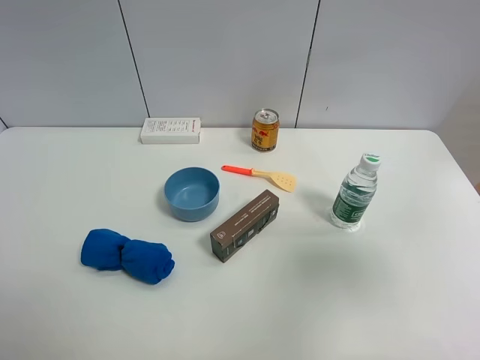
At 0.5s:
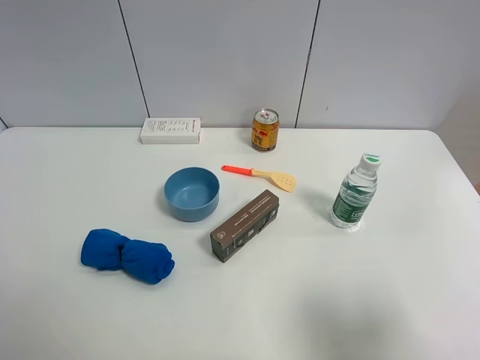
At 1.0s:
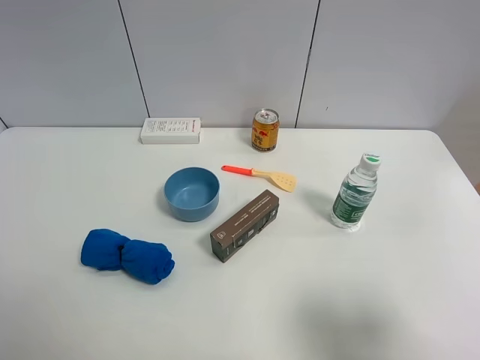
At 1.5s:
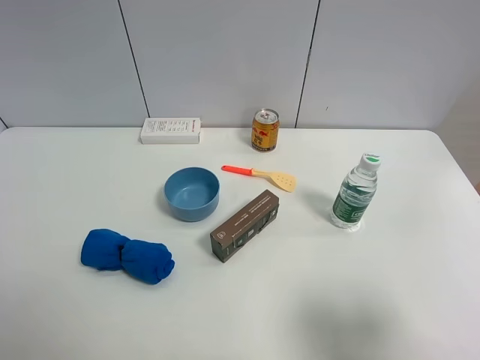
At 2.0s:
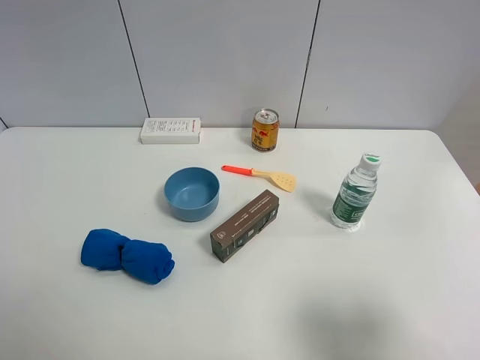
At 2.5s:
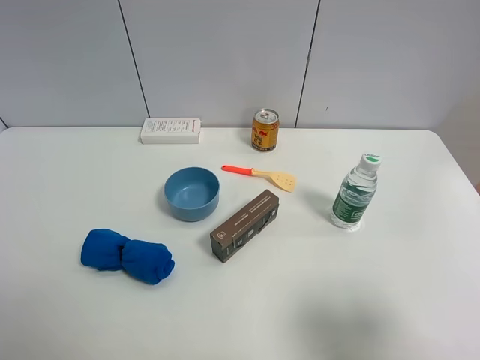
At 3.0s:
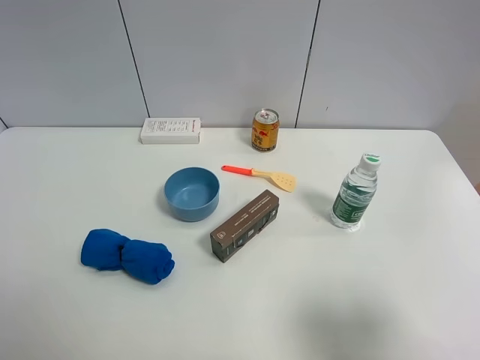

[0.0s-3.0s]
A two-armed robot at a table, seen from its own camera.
Task of the whole recording: the gripper move the object.
0.0s to 1.5s: The right gripper is displaced downward and backward by about 15 cm.
1.5s to 3.0s: The two grippers keep their place.

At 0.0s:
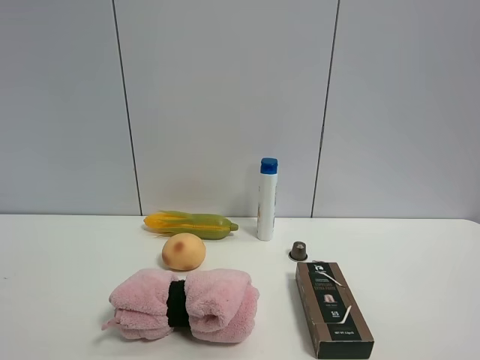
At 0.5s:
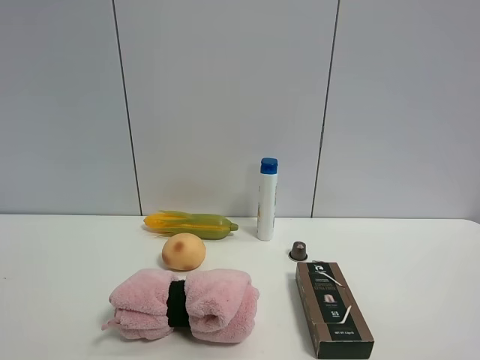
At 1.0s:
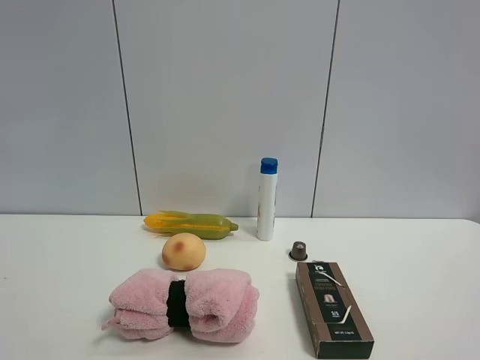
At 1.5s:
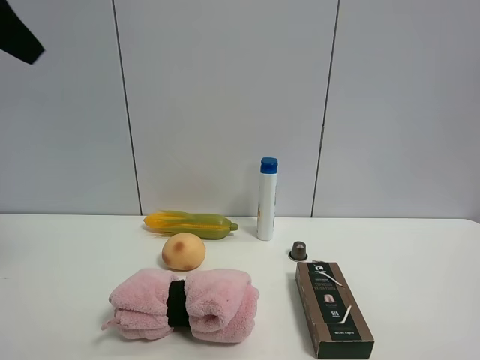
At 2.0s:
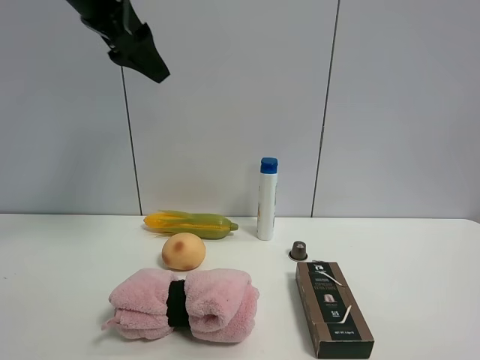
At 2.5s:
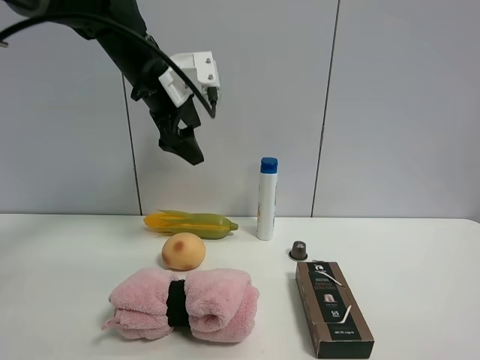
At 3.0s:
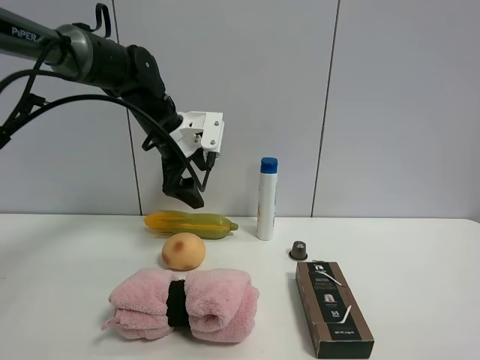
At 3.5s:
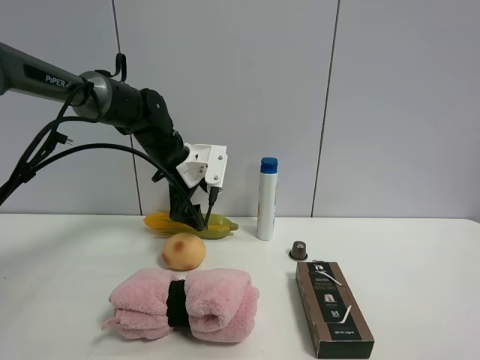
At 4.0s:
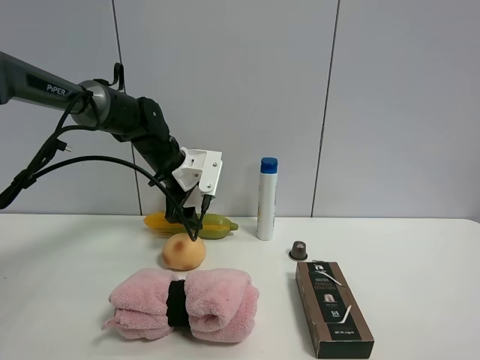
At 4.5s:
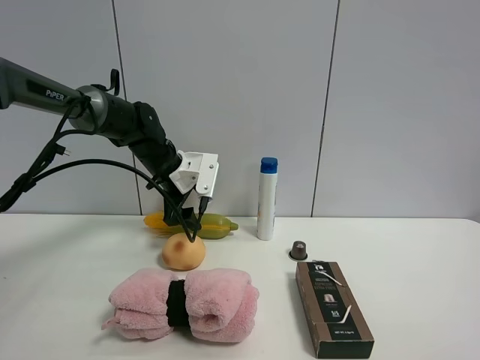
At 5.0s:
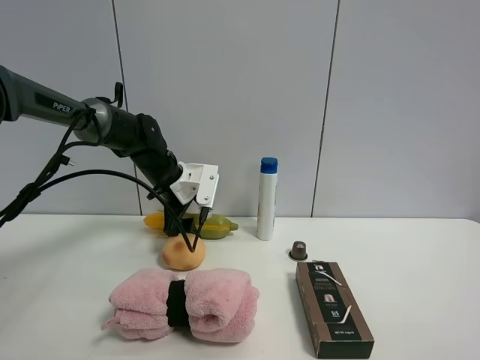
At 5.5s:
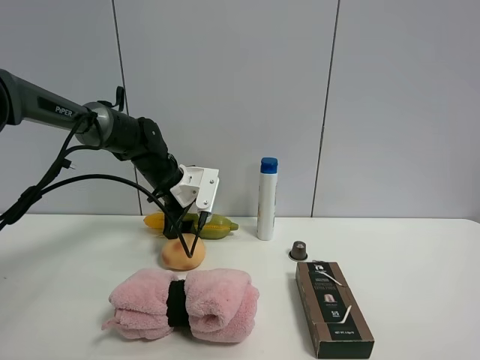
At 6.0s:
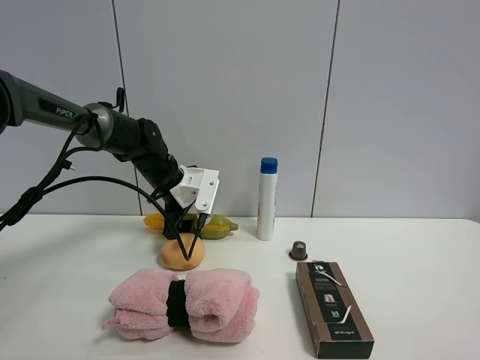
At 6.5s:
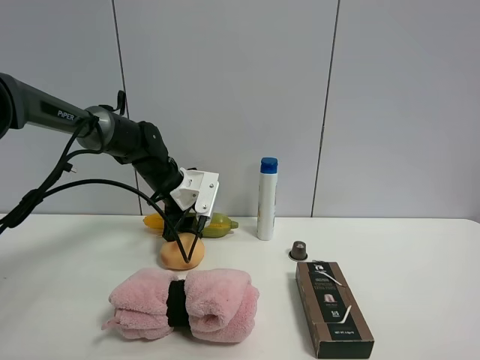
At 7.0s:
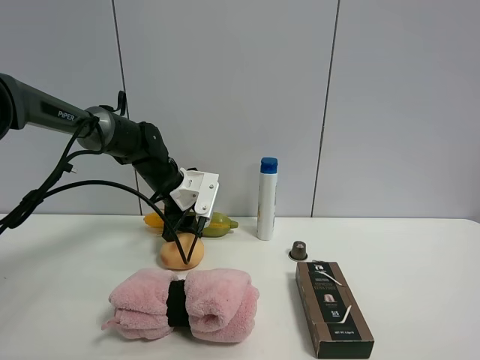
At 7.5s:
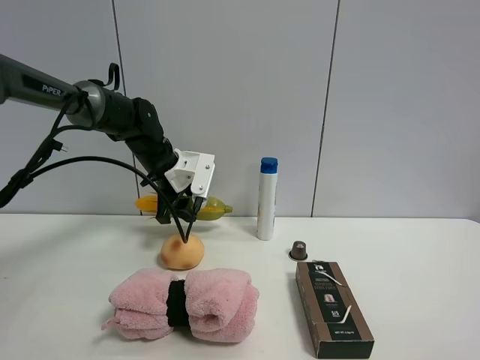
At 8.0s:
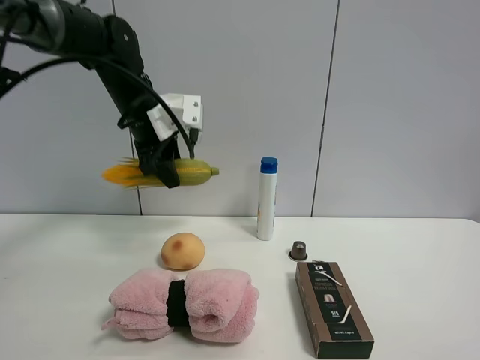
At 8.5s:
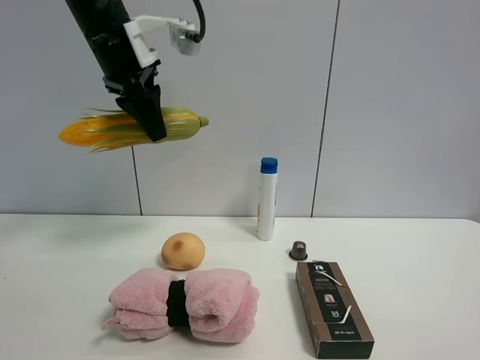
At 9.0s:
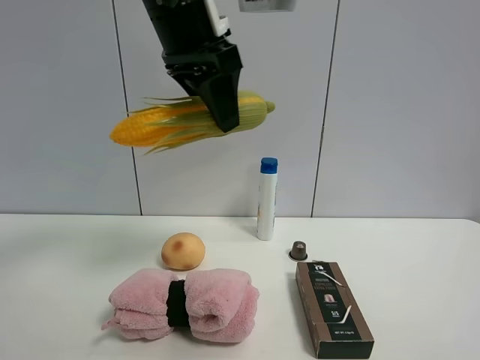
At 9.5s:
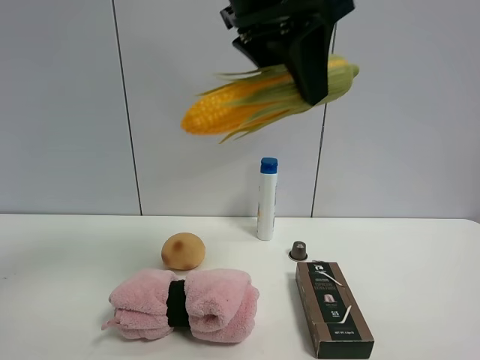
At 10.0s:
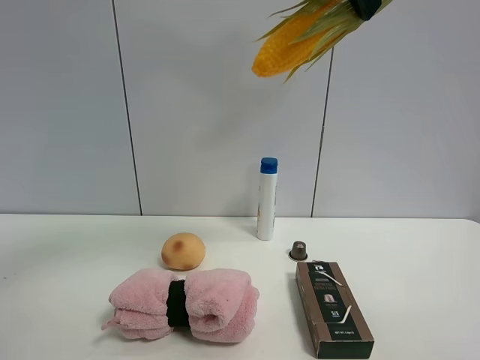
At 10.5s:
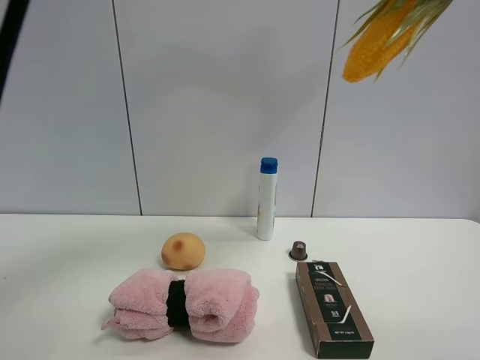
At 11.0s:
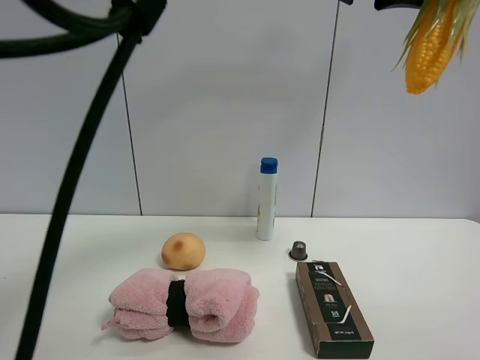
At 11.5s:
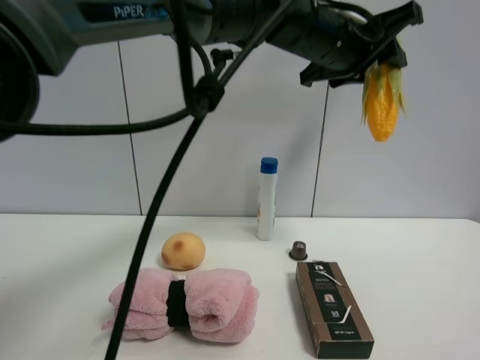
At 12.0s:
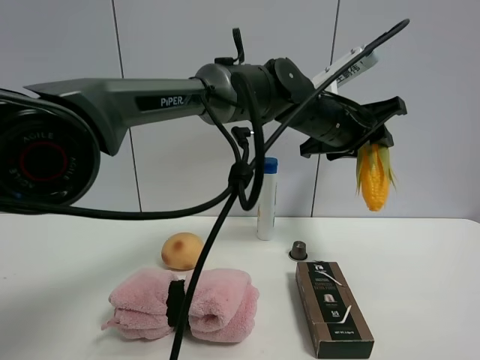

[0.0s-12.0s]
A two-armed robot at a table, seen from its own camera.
Task of the whole recording: the gripper move the object.
Step, 0.0s to 6.5s: Grasp the corn with the left gripper.
0.0s to 2.0s: The left gripper goes some 40 cm forward.
2.0s to 4.0s: The left gripper shifts roughly 30 cm downward and forward.
4.0s to 6.0s: The grippers move only a little.
6.0s to 8.0s: The left gripper goes about 15 cm upward, and closes up.
8.0s to 10.0s: The left gripper shifts about 30 cm upward, to the right and backward.
10.0s to 12.0s: The left gripper travels downward and forward by about 25 cm.

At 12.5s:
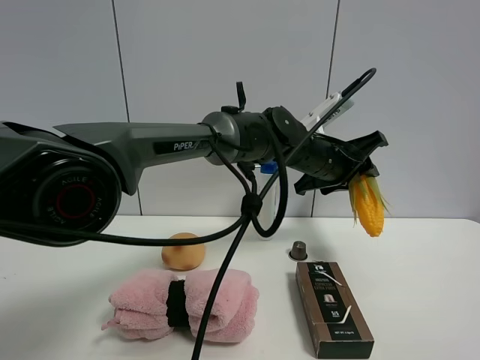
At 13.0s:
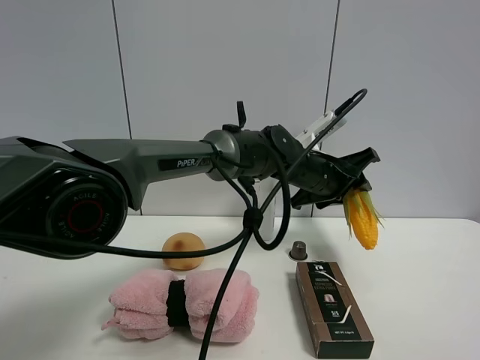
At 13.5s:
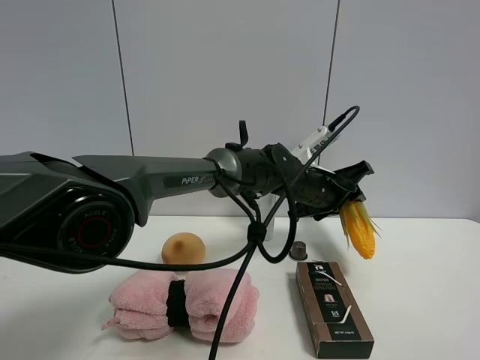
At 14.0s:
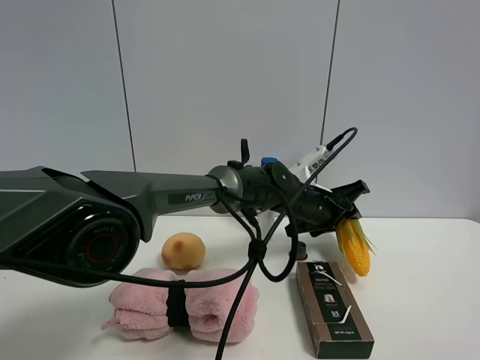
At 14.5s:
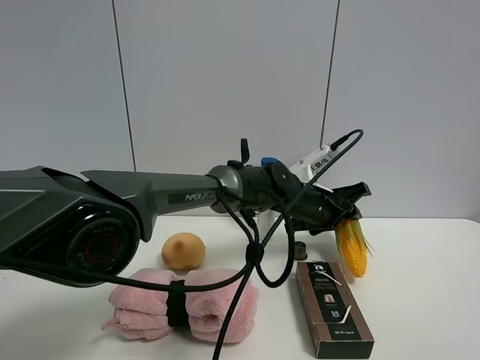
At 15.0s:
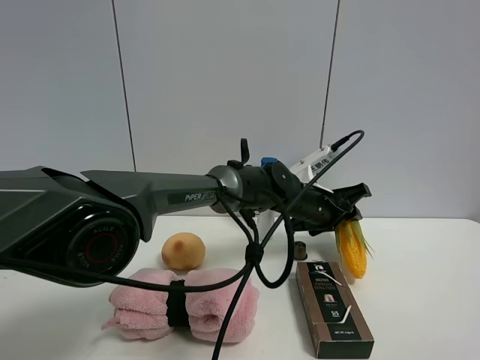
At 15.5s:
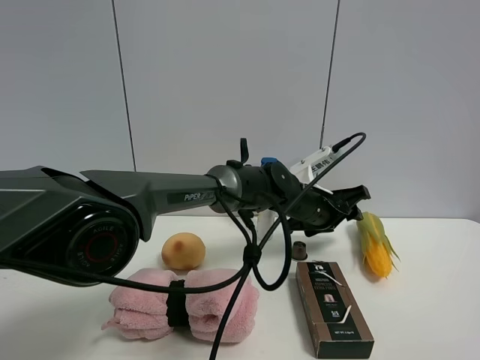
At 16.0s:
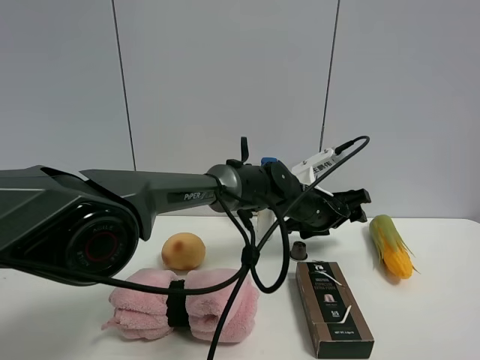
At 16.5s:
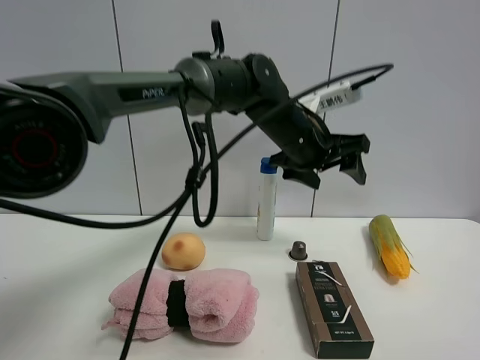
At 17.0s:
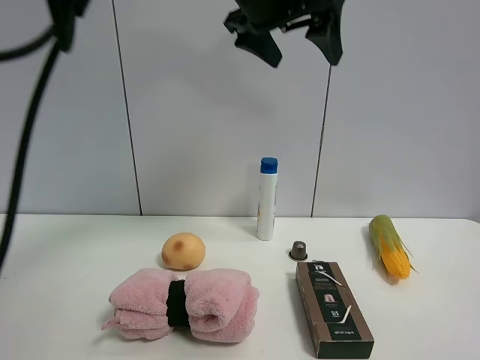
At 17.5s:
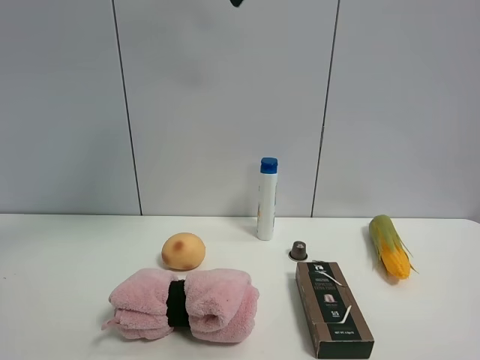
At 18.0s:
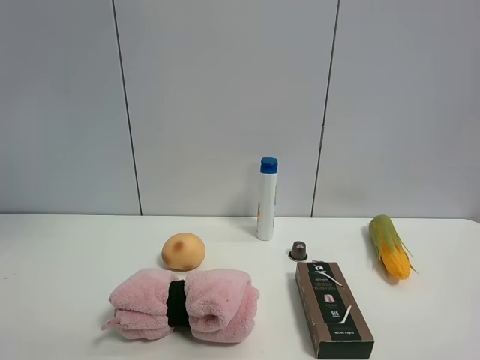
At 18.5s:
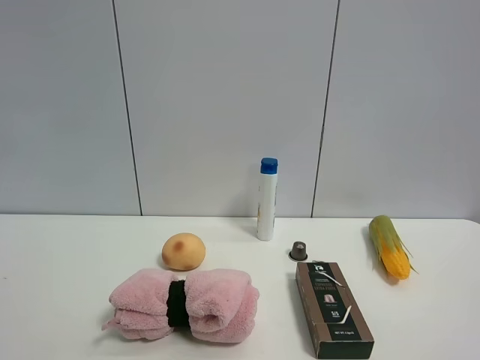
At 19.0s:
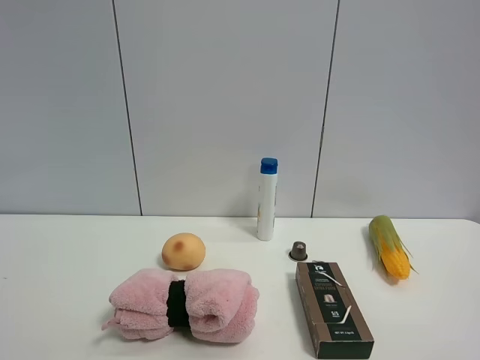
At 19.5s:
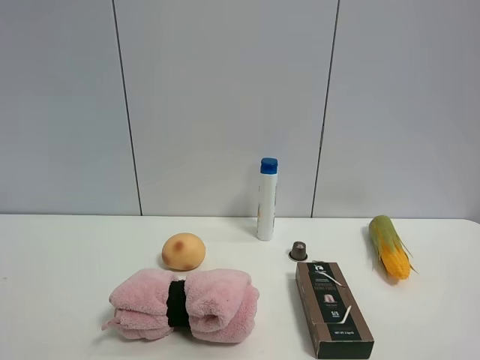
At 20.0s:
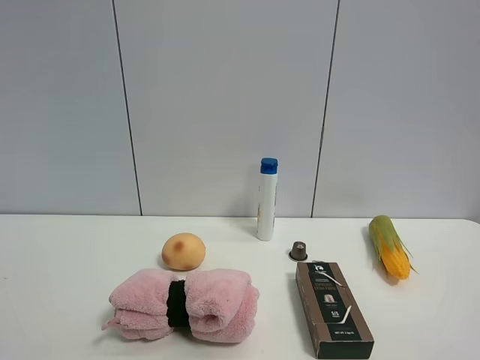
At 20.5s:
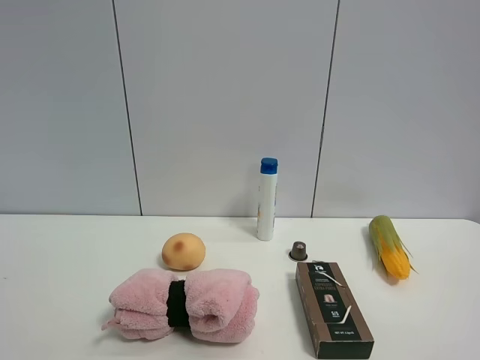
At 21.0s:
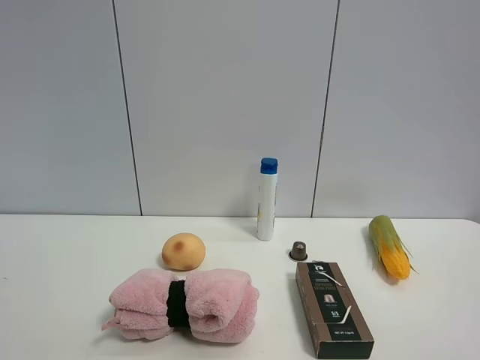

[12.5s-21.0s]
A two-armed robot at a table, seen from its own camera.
Task of the whole recording: the gripper move the object.
Step, 12.5s to 15.0s: Place the corn on the table with the left gripper.
12.5s to 14.5s: The left gripper is displaced downward by approximately 10 cm.
14.5s to 16.5s: The left gripper travels upward by approximately 15 cm, and opens.
16.5s to 19.0s: The left gripper moves backward and to the left, some 60 cm, and opens up.
